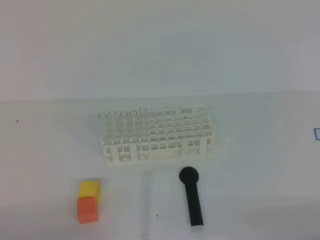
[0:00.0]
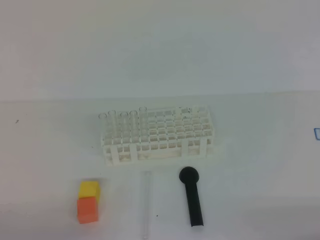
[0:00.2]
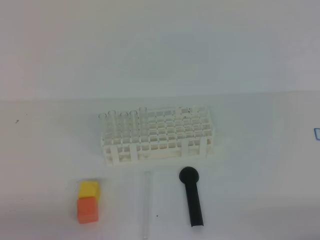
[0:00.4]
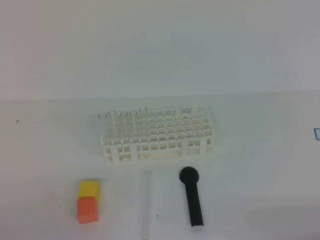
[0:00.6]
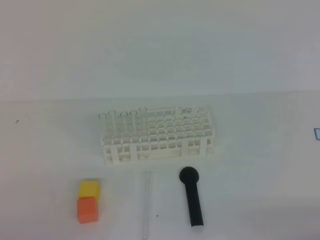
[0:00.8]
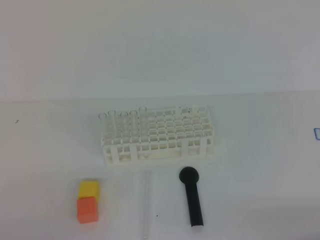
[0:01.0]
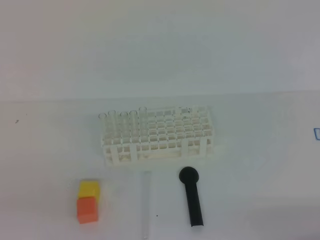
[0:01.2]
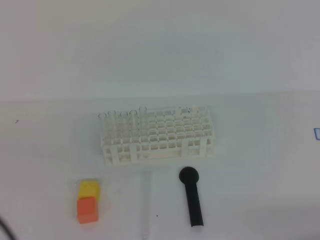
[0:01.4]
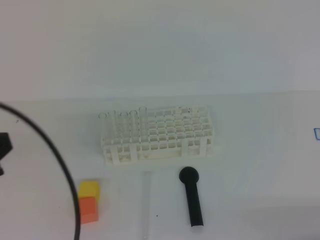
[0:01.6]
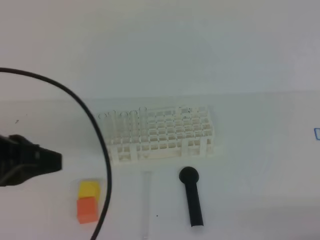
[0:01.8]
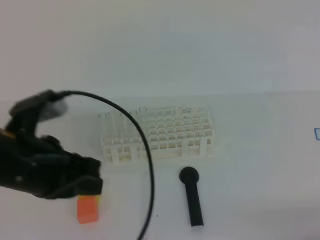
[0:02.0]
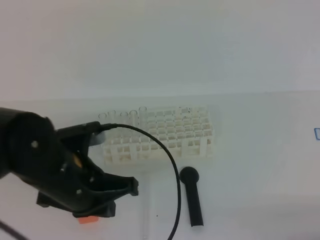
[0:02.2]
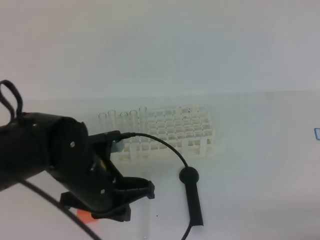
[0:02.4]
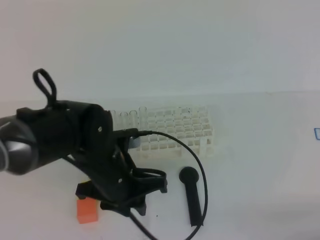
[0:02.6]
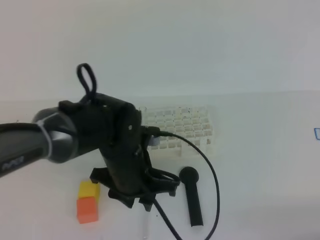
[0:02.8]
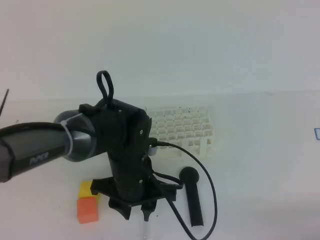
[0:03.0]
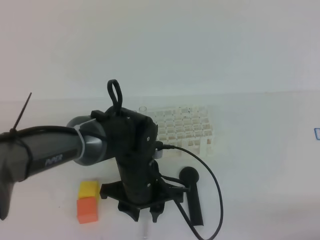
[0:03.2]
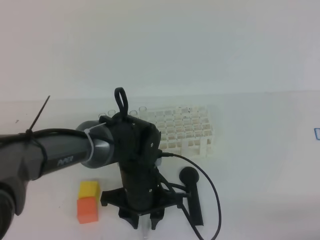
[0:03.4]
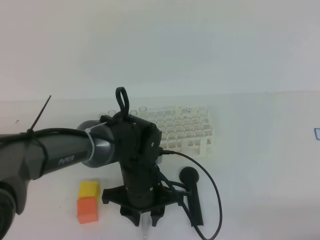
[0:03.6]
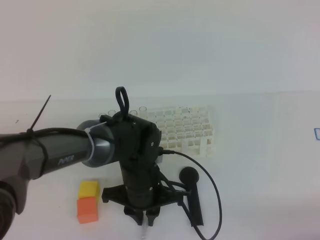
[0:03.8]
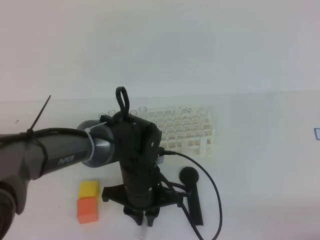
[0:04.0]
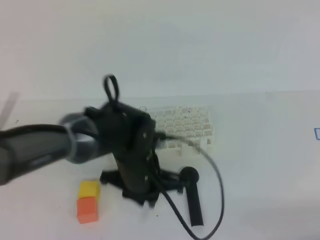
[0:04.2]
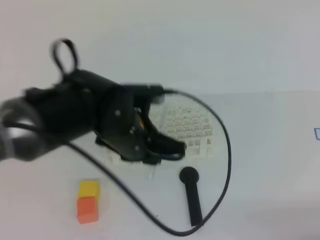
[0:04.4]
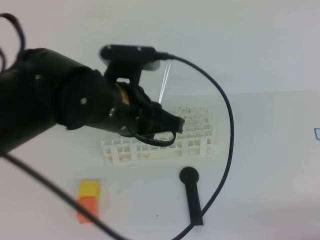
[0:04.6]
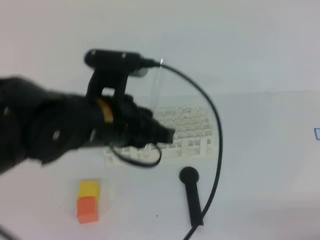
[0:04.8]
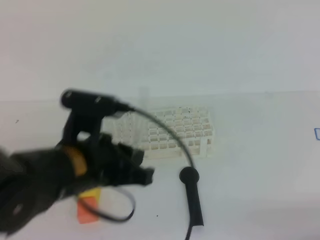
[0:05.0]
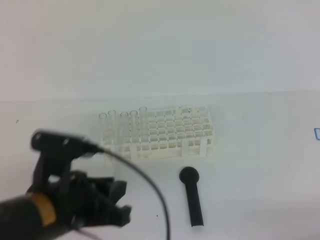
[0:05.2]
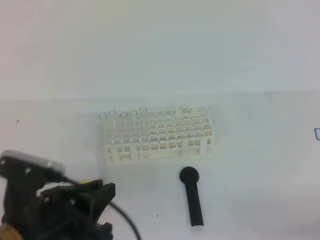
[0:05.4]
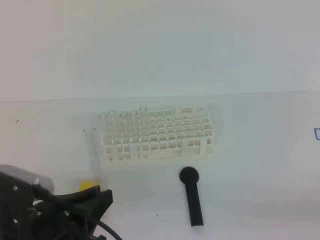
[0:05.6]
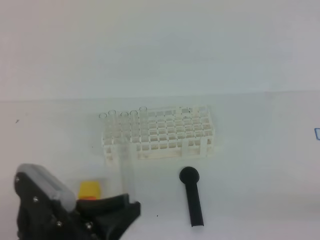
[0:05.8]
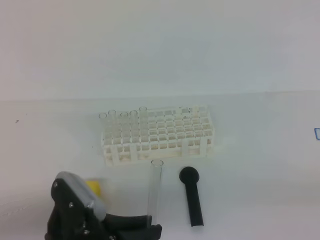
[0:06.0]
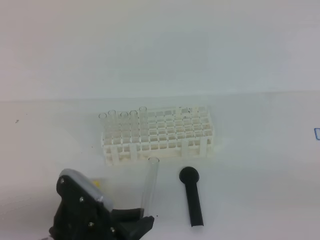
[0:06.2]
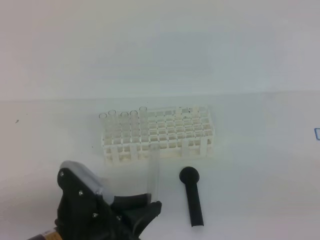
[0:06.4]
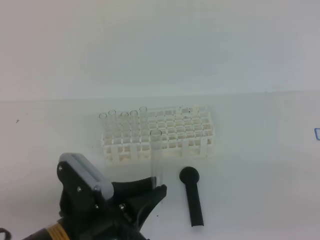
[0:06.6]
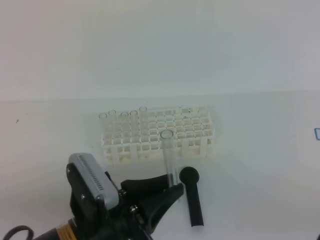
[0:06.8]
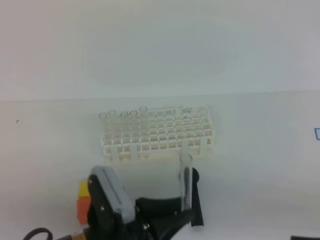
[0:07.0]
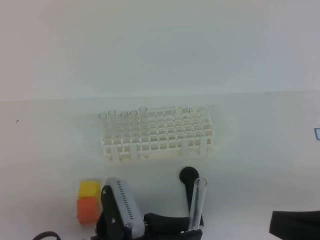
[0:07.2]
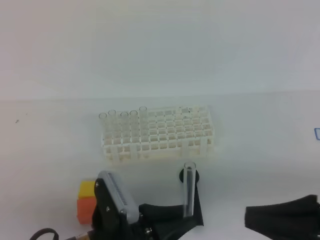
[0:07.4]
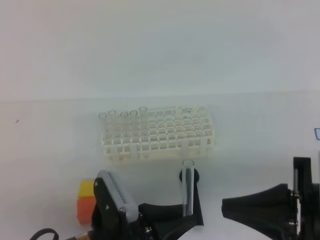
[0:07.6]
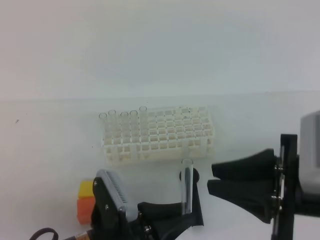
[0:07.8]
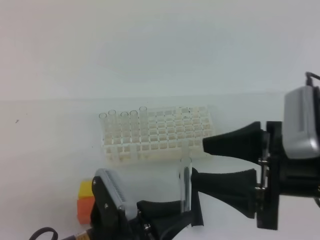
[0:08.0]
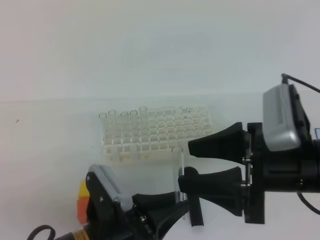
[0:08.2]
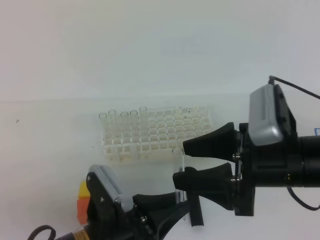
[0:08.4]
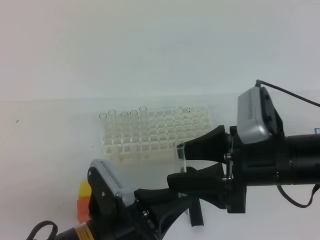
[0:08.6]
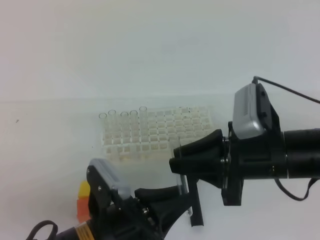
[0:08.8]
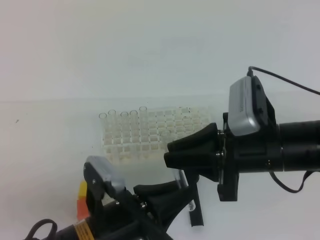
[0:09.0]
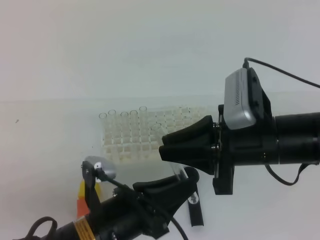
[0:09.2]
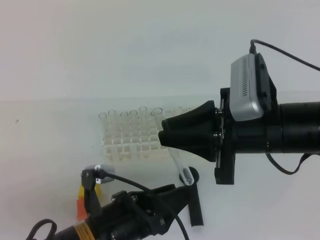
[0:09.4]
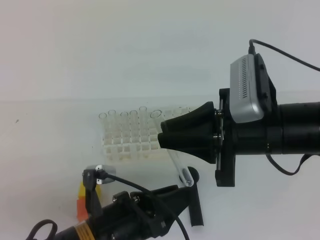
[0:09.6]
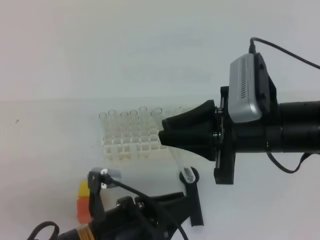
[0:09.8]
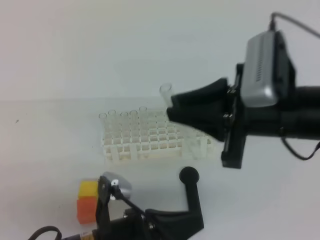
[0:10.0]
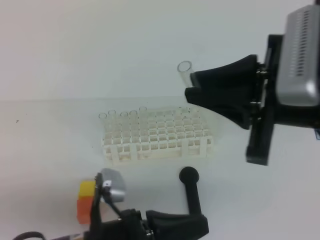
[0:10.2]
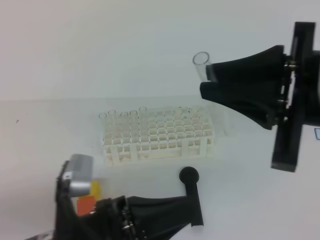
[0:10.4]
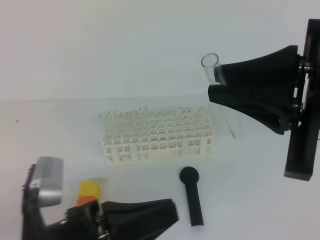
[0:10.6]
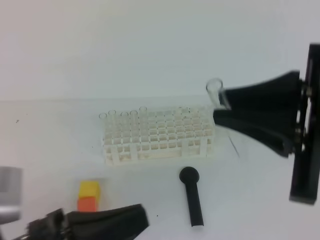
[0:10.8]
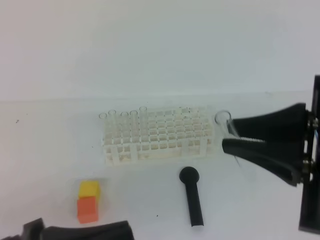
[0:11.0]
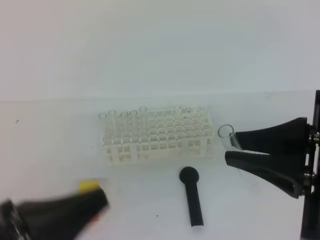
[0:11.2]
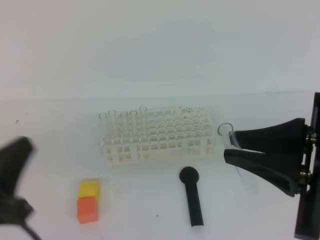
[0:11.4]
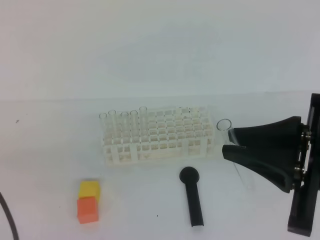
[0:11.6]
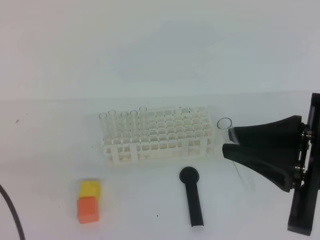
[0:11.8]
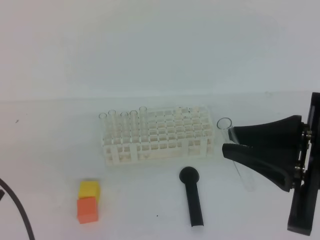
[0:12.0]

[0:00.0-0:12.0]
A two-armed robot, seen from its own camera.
0:00.0 to 0:01.6: The left gripper goes roughly 15 cm upward.
0:01.6 to 0:03.0: The left gripper moves to the right, downward and forward, roughly 30 cm, and opens its fingers.
0:03.0 to 0:04.4: The left gripper moves upward, roughly 5 cm, and closes up.
0:04.4 to 0:06.0: The right gripper travels upward by approximately 10 cm, while the left gripper moves backward and to the left, approximately 20 cm.
0:06.0 to 0:07.6: The right gripper is displaced to the left and forward by some 15 cm. Meanwhile the left gripper shifts about 5 cm downward.
0:07.6 to 0:09.0: The right gripper is displaced forward and to the left by some 10 cm, and opens, then closes again.
0:09.0 to 0:10.4: The right gripper travels upward by roughly 10 cm. The left gripper shifts roughly 5 cm upward, and closes.
0:10.4 to 0:12.0: The left gripper moves to the left, some 15 cm, while the right gripper shifts roughly 5 cm downward.

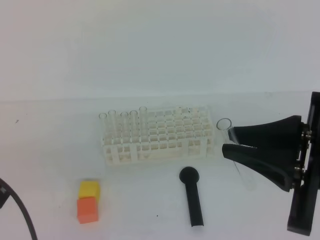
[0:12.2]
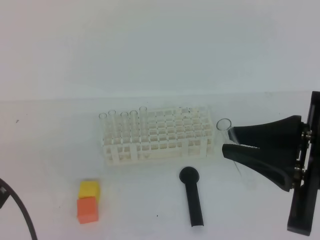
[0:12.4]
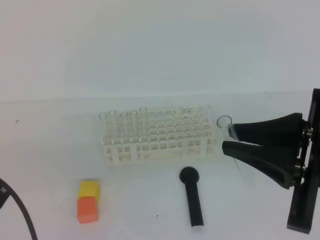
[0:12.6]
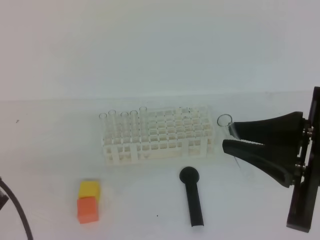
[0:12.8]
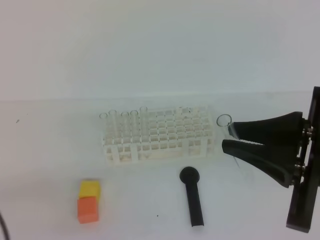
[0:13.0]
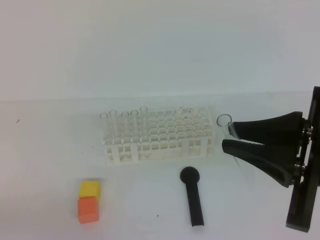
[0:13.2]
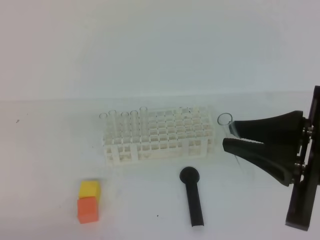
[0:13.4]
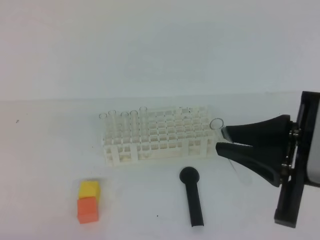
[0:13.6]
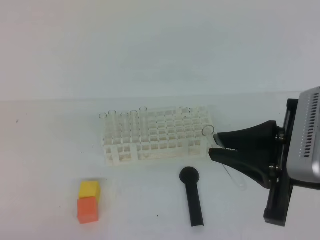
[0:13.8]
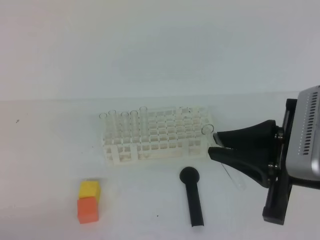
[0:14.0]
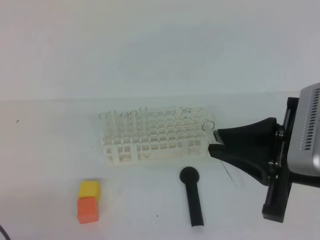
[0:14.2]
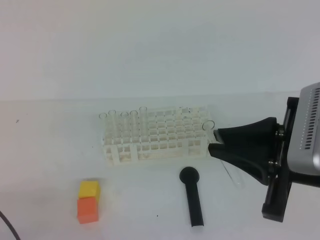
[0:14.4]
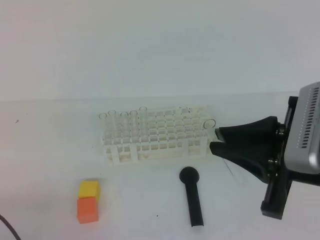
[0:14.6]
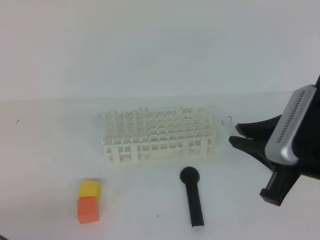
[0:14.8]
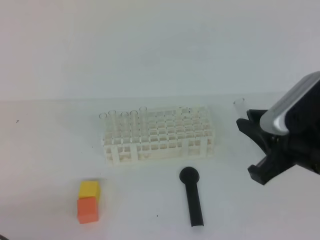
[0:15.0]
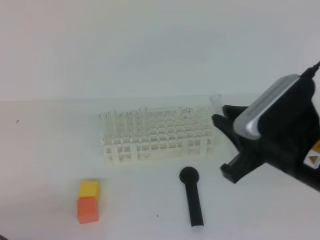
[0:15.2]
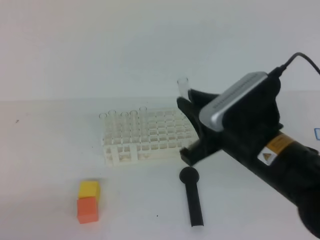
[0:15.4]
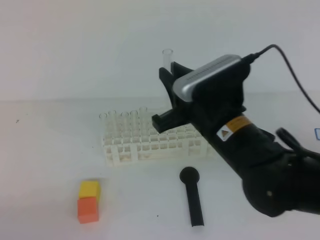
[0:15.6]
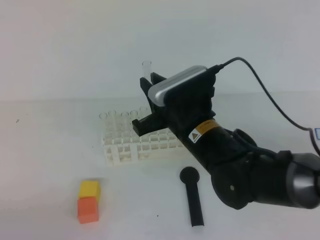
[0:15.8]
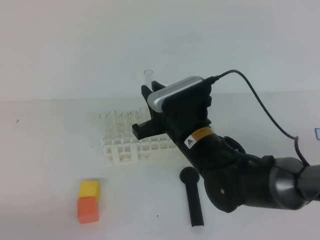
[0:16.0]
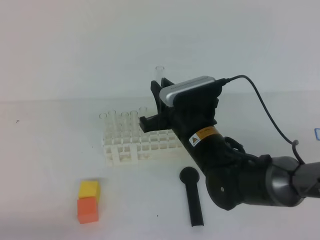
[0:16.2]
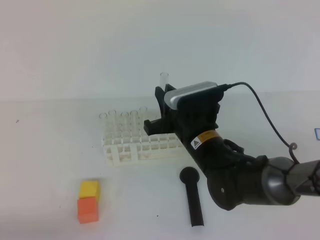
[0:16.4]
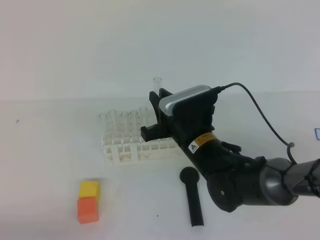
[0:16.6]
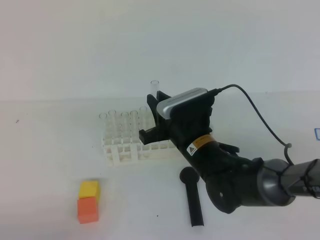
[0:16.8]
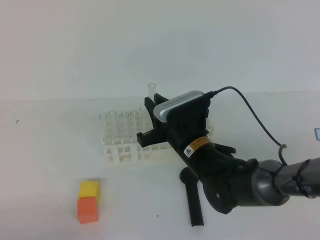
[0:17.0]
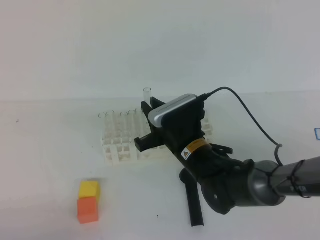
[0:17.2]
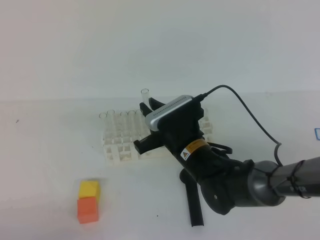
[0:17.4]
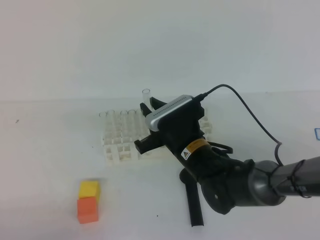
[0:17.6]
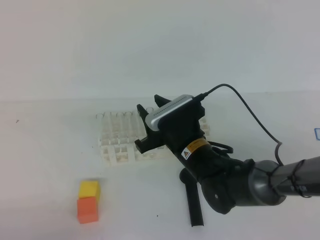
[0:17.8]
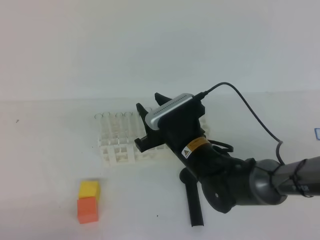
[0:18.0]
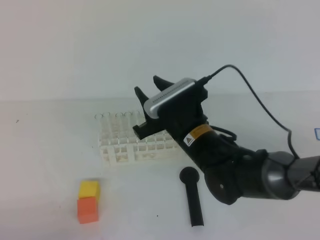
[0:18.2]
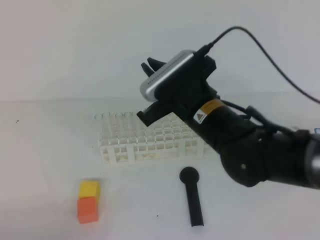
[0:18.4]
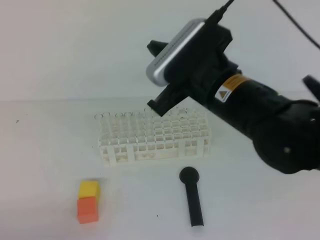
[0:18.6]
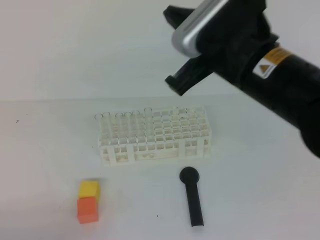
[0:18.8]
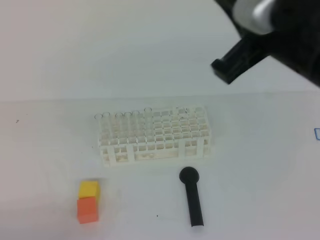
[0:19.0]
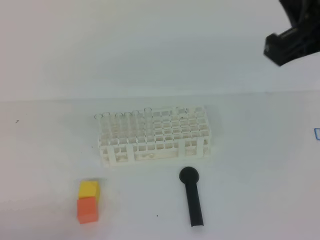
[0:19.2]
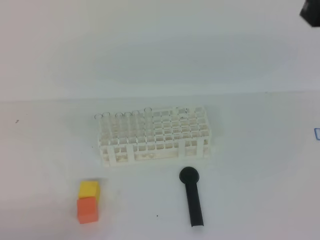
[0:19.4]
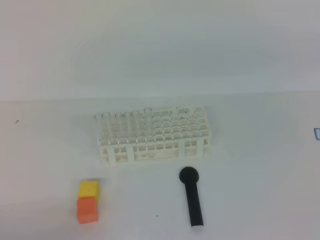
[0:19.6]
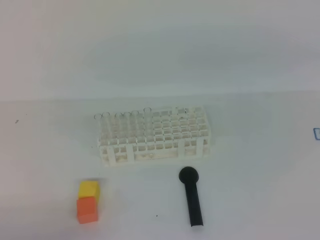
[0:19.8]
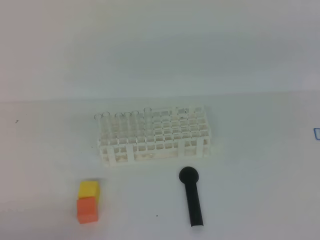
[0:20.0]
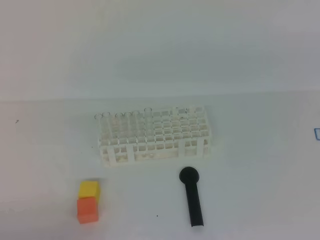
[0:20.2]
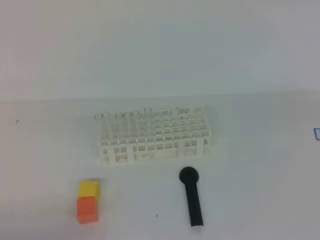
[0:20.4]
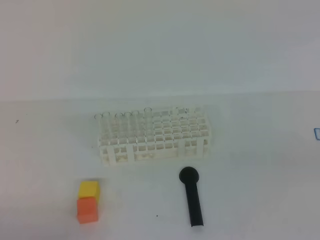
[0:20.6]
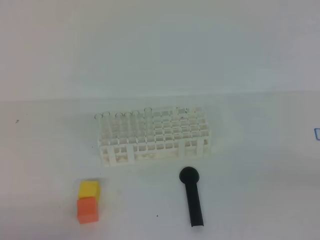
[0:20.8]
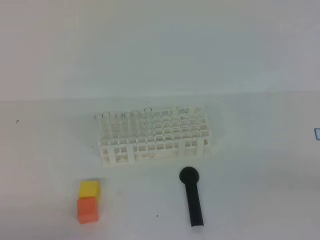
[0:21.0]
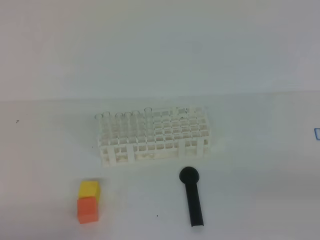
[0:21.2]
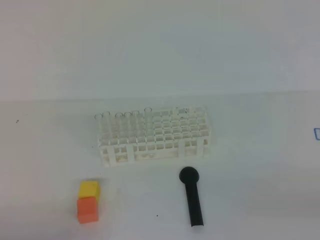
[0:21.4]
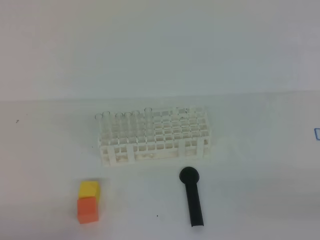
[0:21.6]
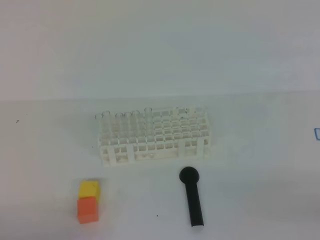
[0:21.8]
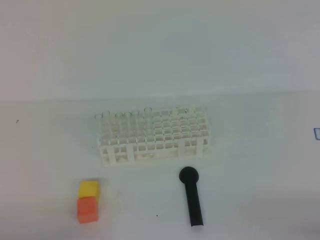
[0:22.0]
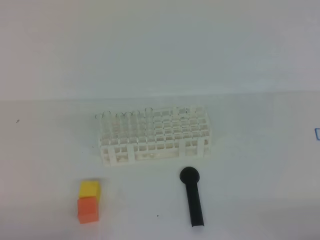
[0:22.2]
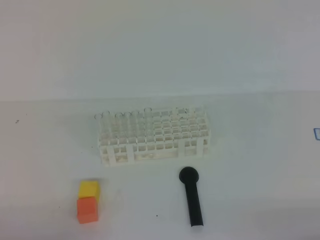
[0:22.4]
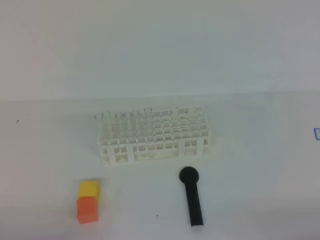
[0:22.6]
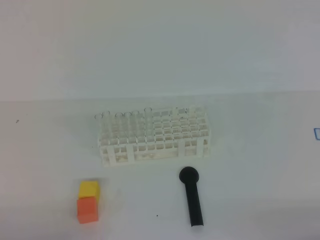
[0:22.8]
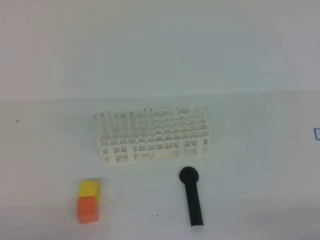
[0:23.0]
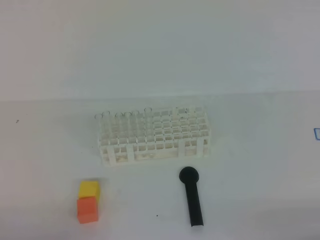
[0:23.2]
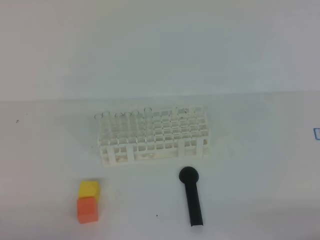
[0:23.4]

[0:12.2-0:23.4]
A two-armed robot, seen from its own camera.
0:12.2 to 0:13.8: The left gripper goes about 10 cm downward.
0:13.8 to 0:15.4: The right gripper is displaced to the left by some 5 cm.
0:15.4 to 0:17.0: The right gripper is displaced downward, forward and to the left by roughly 15 cm.
0:17.0 to 0:18.6: The right gripper moves upward, about 15 cm, and opens and closes again.
0:18.6 to 0:20.2: The right gripper is displaced to the right, upward and backward by some 30 cm.
